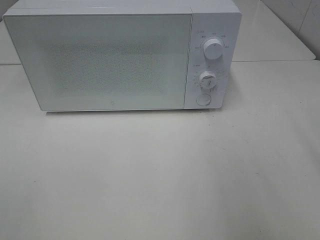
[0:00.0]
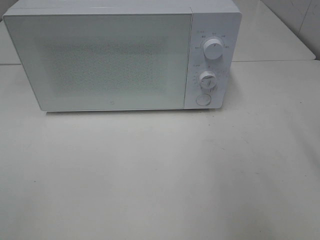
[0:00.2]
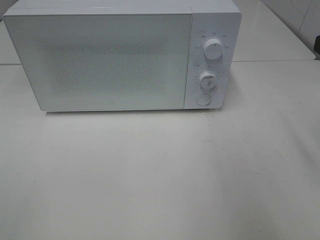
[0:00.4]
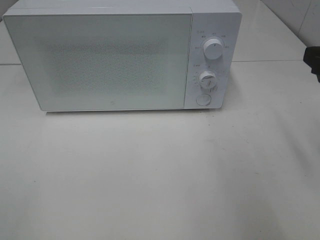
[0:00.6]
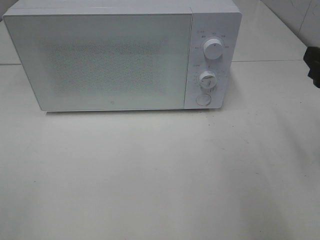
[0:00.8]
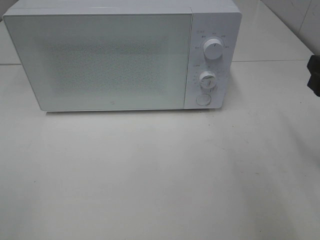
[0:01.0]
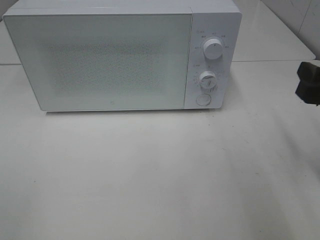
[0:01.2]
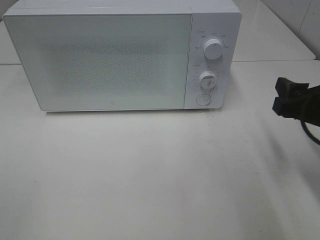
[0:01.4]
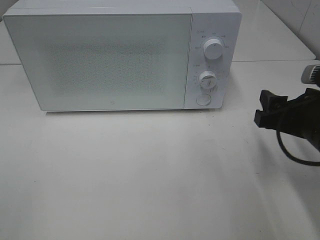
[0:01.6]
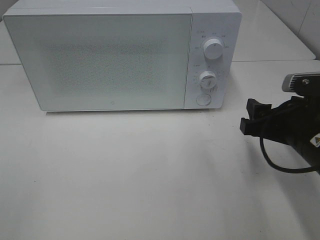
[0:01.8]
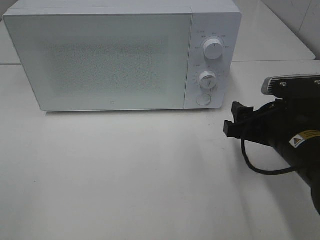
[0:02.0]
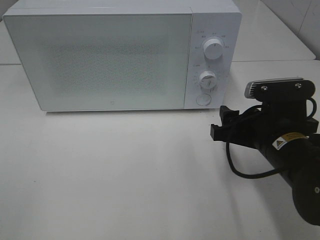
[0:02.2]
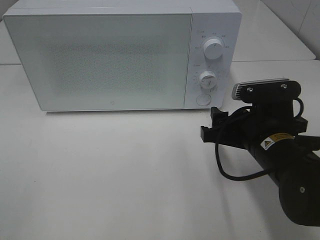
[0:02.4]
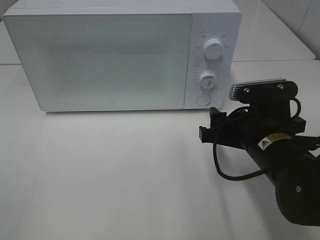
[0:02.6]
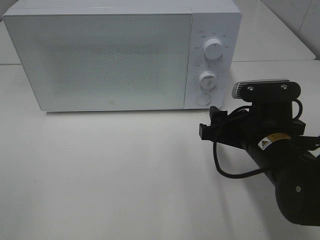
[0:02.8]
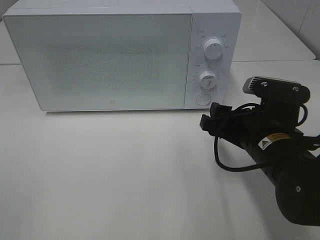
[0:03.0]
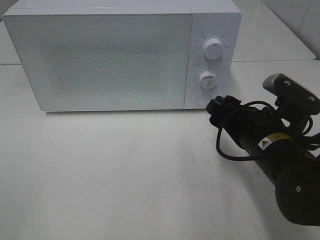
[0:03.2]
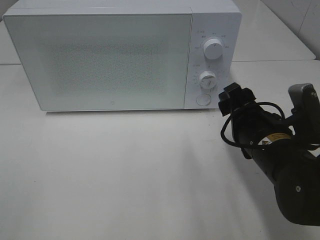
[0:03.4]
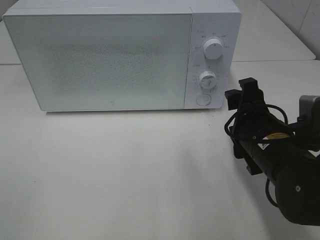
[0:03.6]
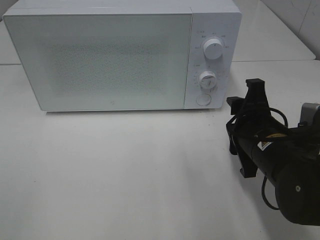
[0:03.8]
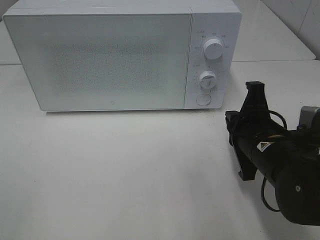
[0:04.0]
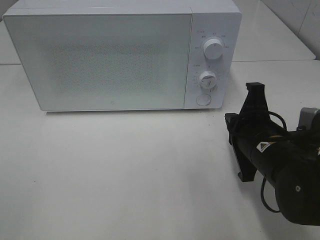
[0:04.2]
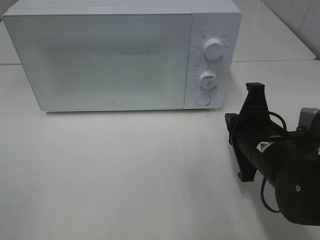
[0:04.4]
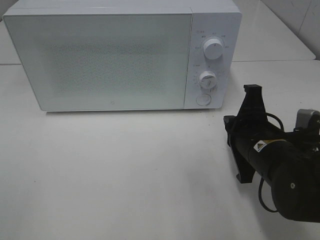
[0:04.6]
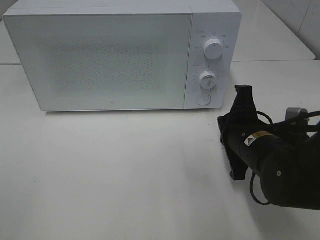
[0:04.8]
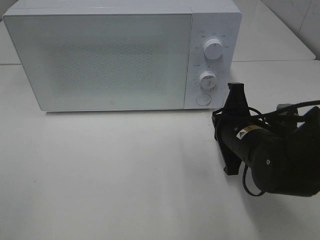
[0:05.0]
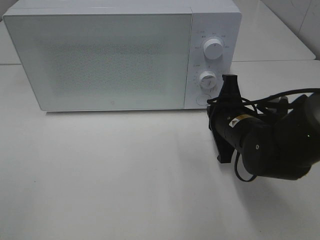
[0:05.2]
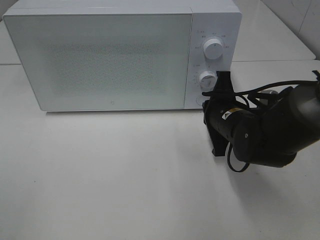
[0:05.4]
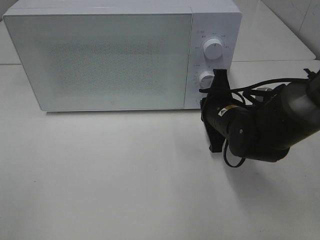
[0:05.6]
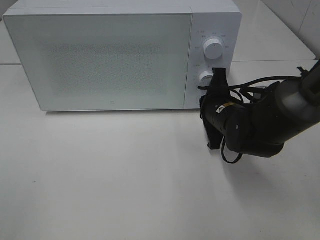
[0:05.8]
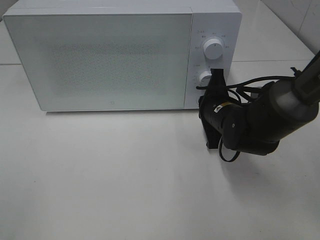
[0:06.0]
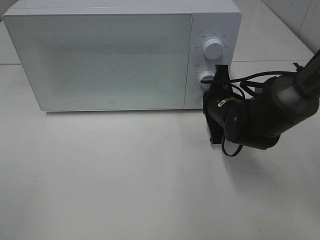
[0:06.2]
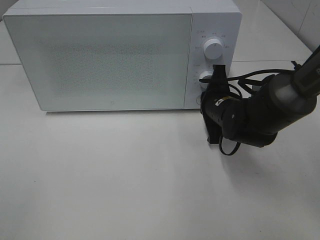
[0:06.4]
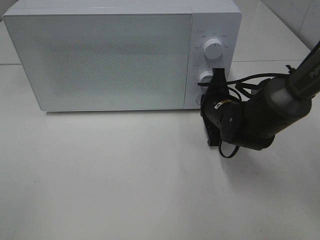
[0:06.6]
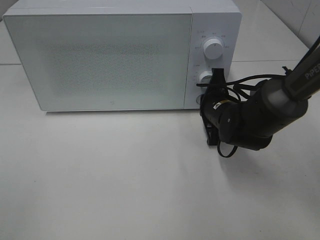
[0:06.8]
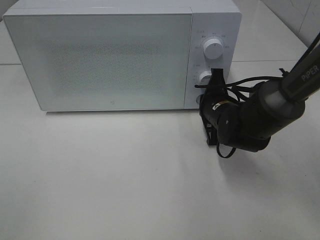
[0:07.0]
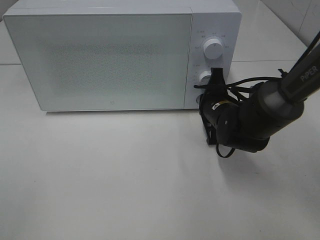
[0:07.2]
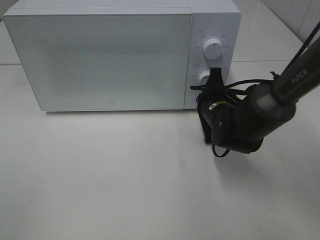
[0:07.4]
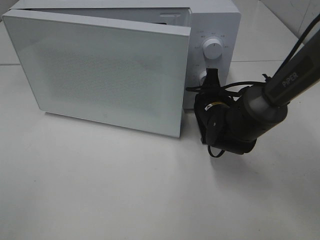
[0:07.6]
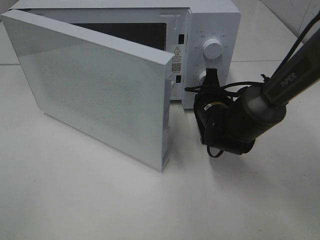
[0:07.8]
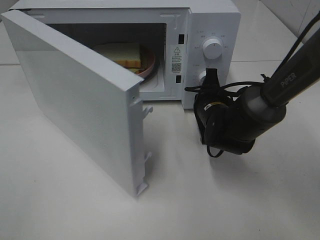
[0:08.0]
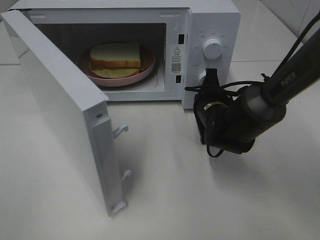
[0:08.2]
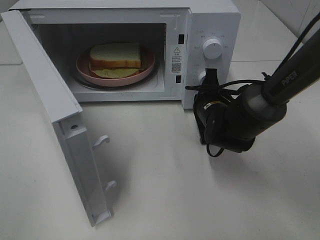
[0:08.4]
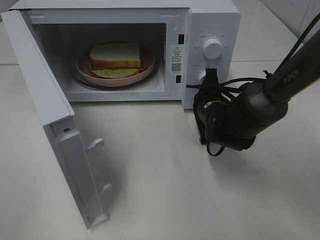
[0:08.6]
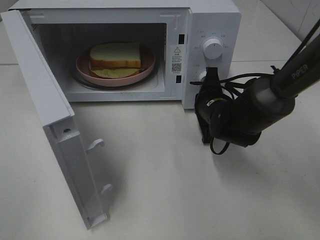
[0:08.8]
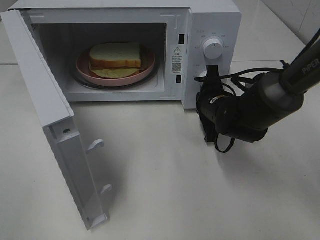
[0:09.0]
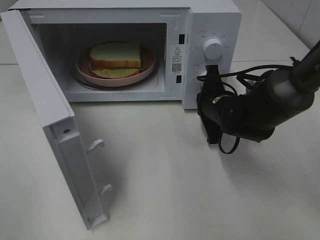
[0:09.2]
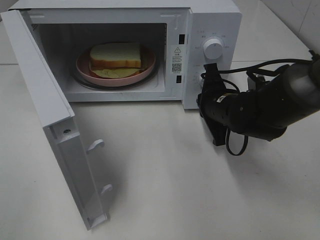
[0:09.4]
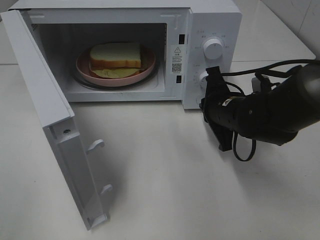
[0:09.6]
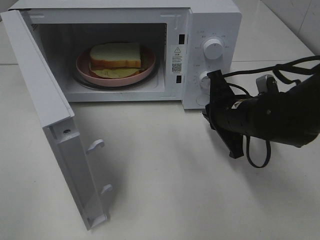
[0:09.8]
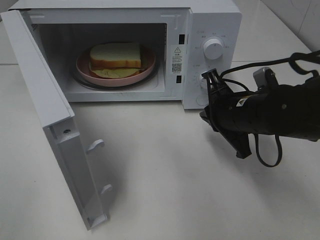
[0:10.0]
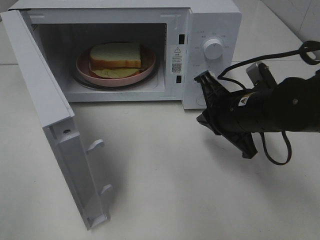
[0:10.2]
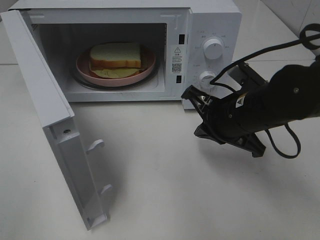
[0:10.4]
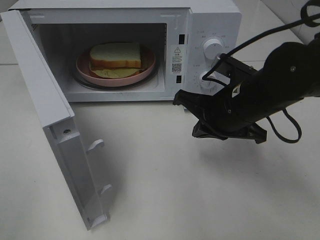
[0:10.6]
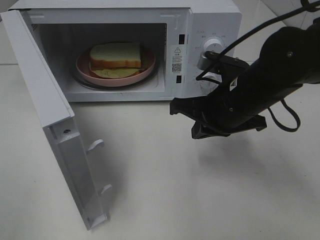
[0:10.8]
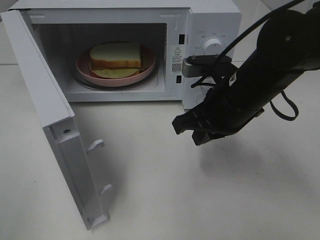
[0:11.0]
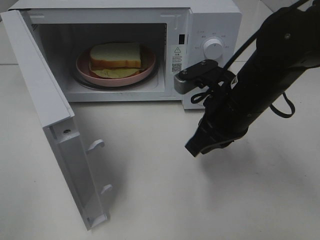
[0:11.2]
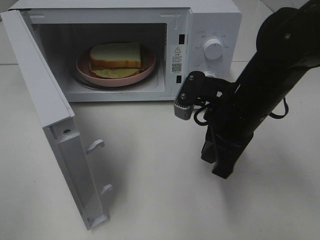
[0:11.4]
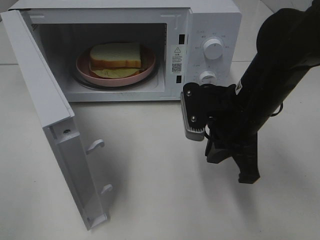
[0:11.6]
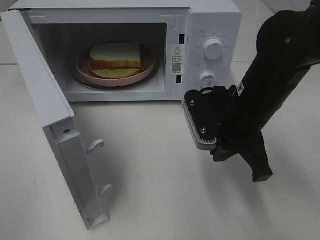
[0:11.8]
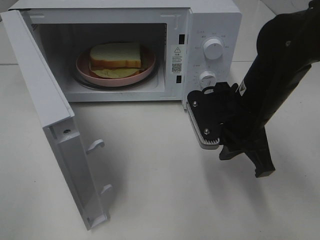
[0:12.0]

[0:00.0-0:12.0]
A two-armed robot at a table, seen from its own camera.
Task of the whole recording: Heat Sandwich.
Step, 0:00.0 to 0:09.4: Right hand: press the switch.
0:00.0 to 0:01.6: The right gripper moves downward, some 15 cm.
0:01.6 to 0:03.0: The right gripper is displaced to the left by approximately 5 cm.
0:03.0 to 0:04.4: The right gripper closes.
0:04.4 to 0:06.0: The right gripper goes some 10 cm forward.
0:06.0 to 0:07.6: The grippers move only a little.
0:09.0 to 0:10.4: The right gripper heads backward and upward, covering about 10 cm.
0:10.4 to 0:12.0: The right gripper opens up.

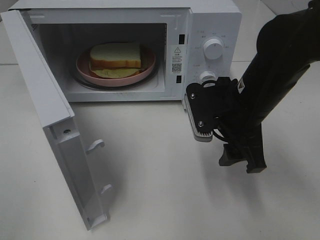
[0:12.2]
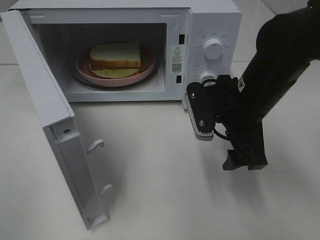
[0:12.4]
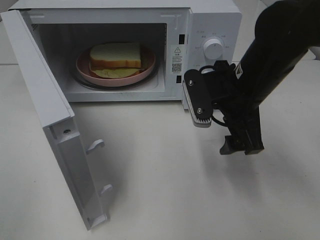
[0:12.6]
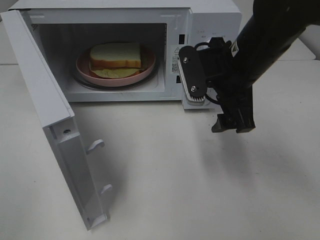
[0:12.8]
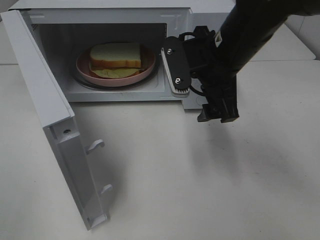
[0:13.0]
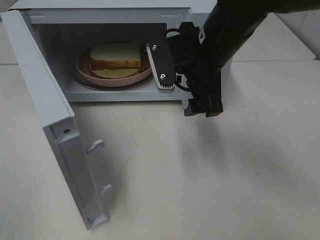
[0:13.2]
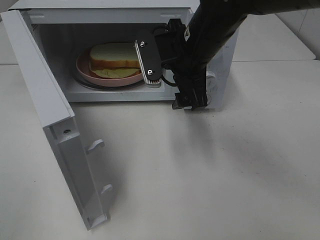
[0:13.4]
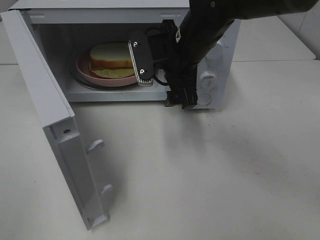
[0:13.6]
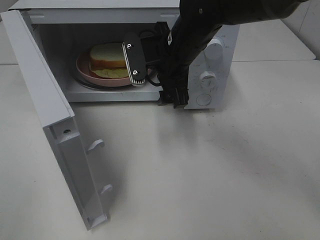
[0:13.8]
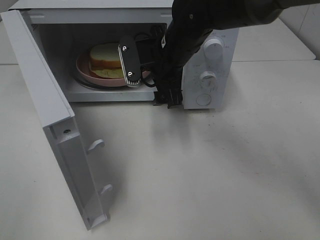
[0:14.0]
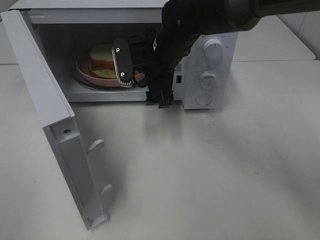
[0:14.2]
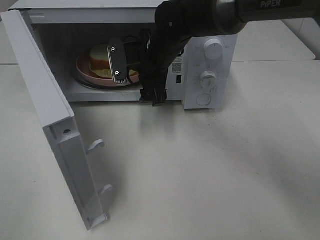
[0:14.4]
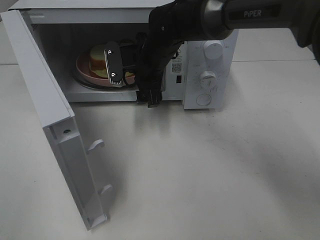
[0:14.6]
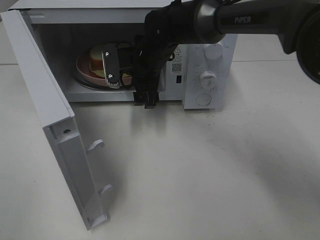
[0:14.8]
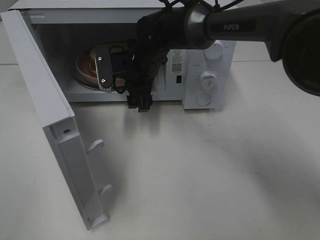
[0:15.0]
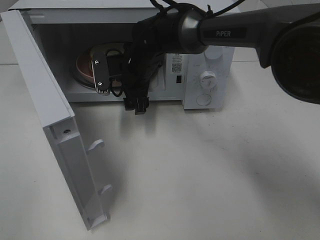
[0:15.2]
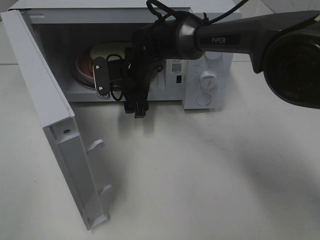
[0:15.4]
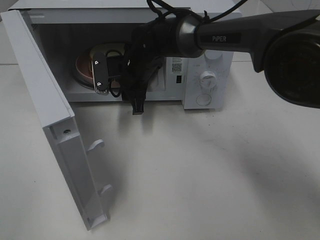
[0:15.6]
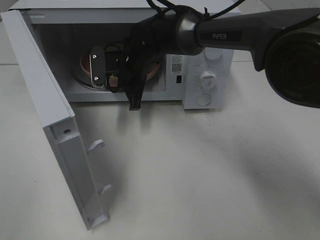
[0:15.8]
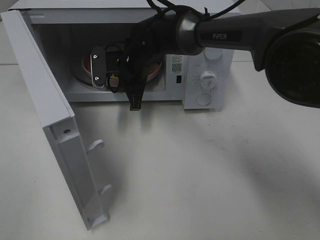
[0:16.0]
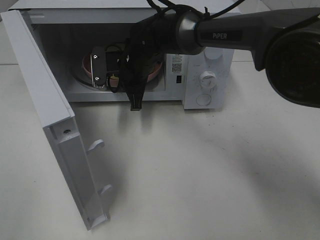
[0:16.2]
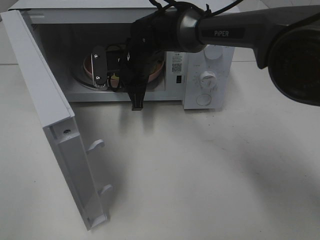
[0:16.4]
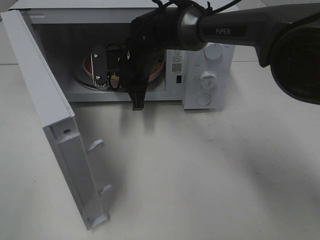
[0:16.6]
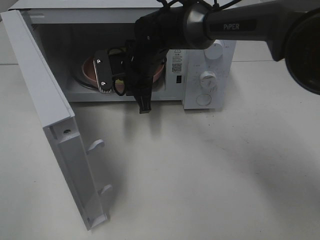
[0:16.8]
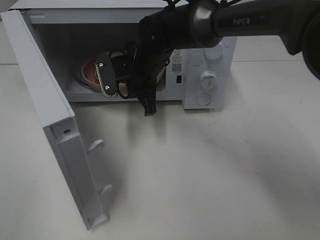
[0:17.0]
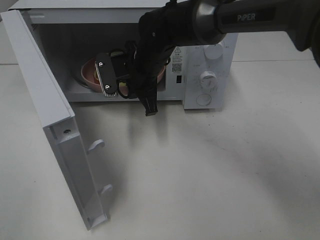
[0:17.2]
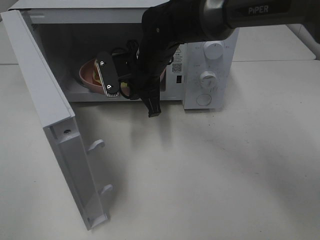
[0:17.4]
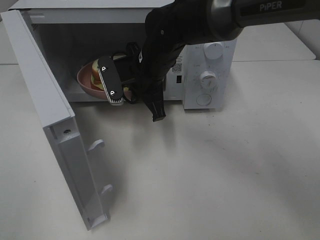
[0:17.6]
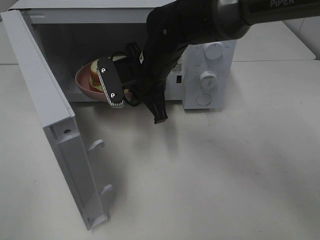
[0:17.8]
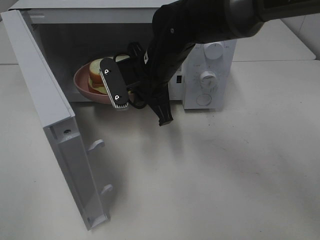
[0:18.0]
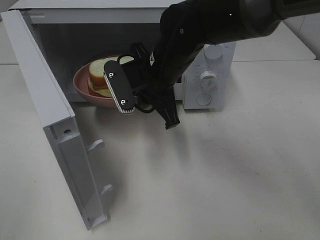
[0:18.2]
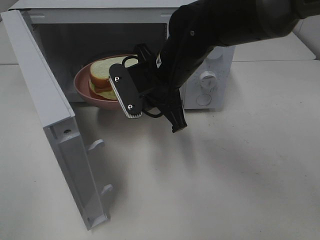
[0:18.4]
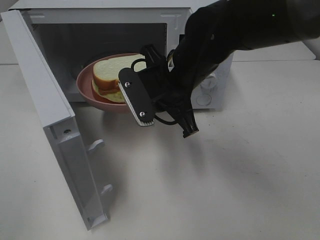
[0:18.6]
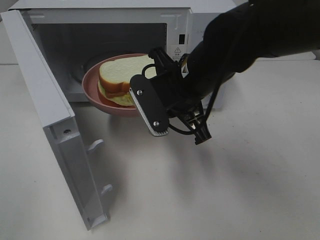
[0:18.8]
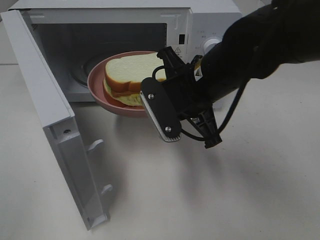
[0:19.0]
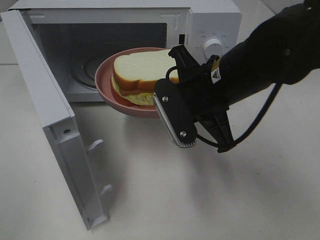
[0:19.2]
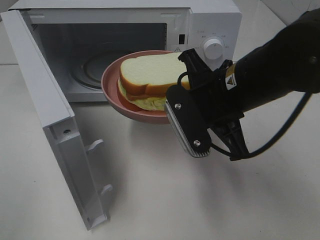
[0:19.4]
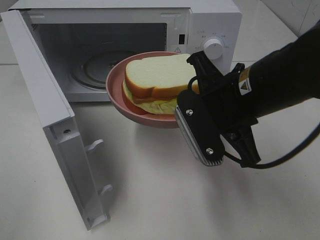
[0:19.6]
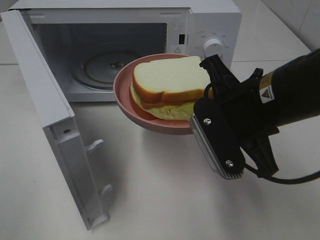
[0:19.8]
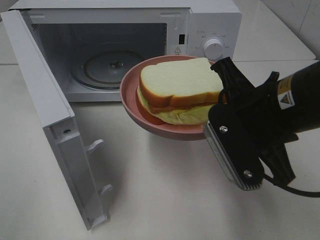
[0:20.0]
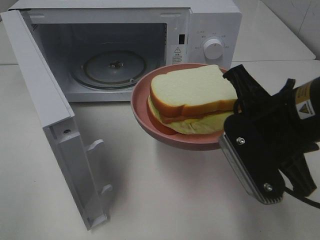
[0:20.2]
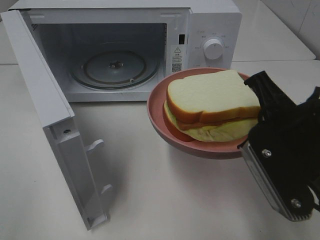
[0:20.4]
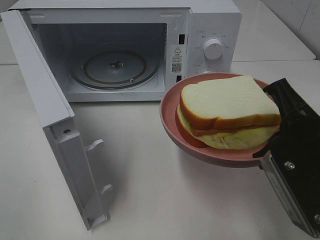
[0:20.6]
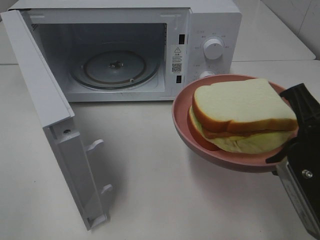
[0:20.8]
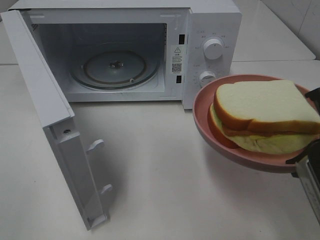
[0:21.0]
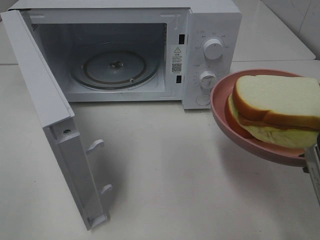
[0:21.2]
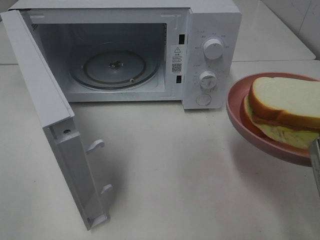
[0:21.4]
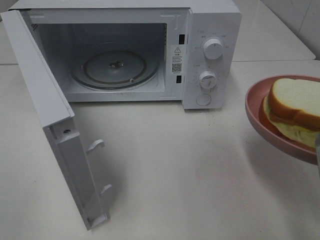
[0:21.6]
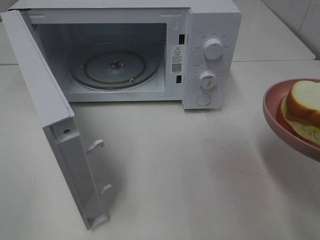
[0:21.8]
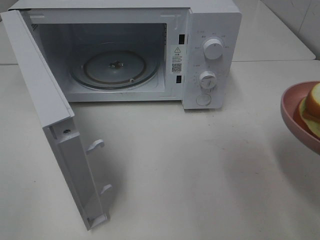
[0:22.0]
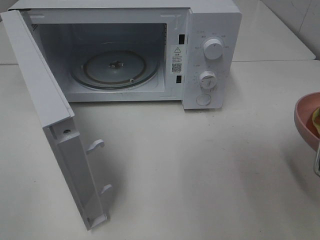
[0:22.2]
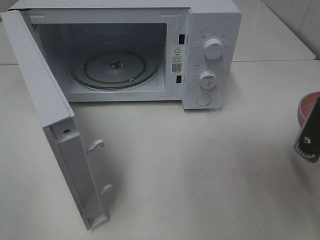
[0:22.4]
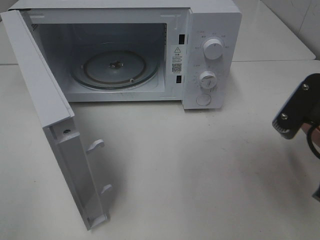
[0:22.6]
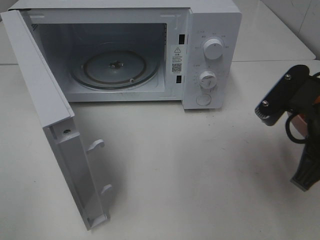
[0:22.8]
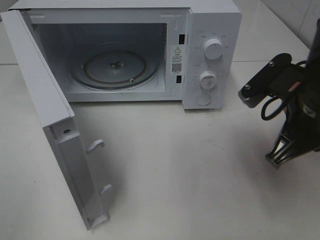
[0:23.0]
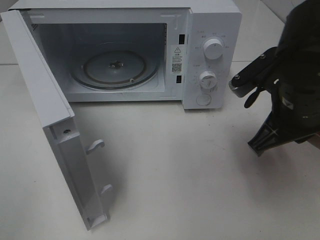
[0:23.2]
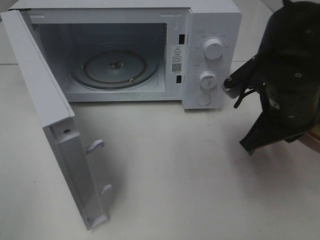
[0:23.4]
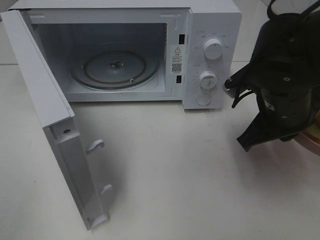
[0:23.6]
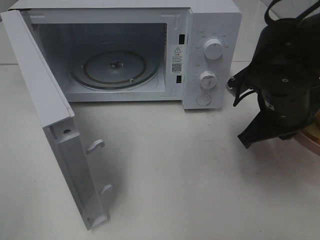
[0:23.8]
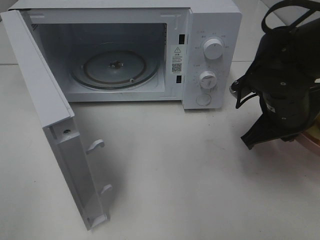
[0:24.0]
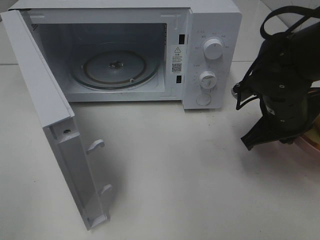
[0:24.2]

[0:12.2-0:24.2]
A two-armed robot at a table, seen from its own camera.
Task of the whole recording: Heat Sandwich.
Step, 0:12.2 to 0:15.8: Right hand: grab the plate with the sandwich.
0:12.2 to 0:13.8: The right gripper goes about 15 cm forward and to the left.
0:13.8 to 0:15.2: The right gripper shifts roughly 10 cm downward, to the left and forward.
0:15.2 to 0:16.6: The right gripper closes up.
0:16.6 to 0:18.2: The right gripper shifts approximately 10 cm backward.
0:18.2 to 0:19.8: The right gripper travels backward and to the right by about 15 cm.
0:19.8 to 0:21.2: The right gripper shifts roughly 15 cm to the right and backward.
0:22.6 to 0:24.2: The right gripper travels forward and downward by about 15 cm.
